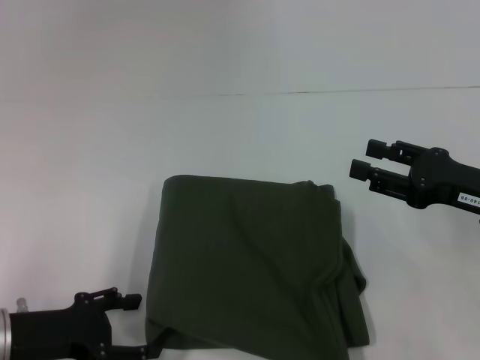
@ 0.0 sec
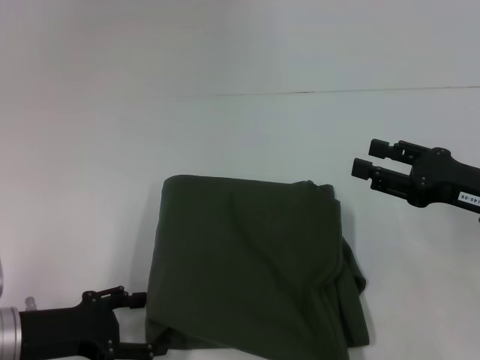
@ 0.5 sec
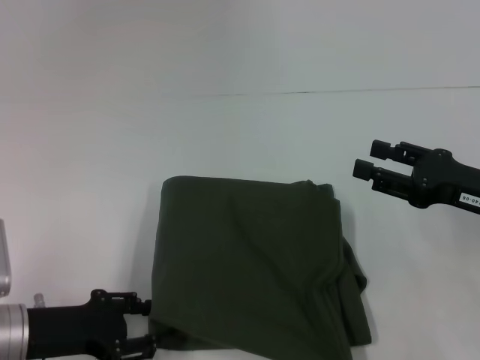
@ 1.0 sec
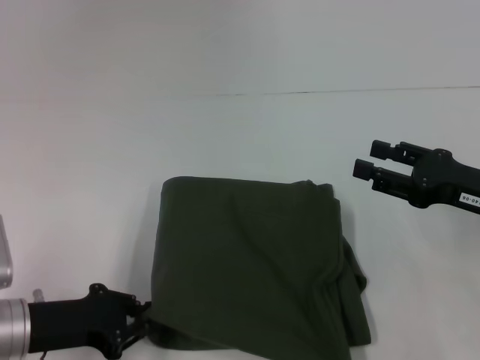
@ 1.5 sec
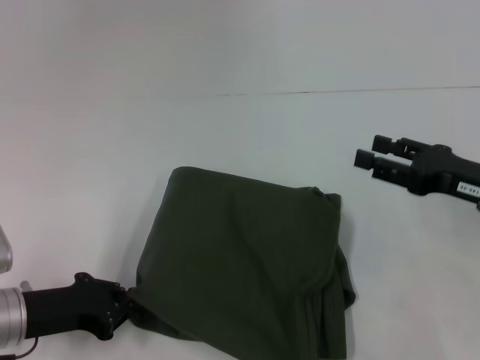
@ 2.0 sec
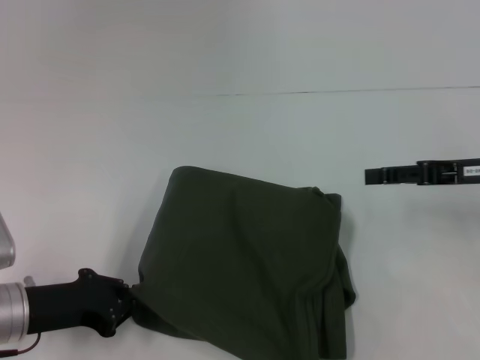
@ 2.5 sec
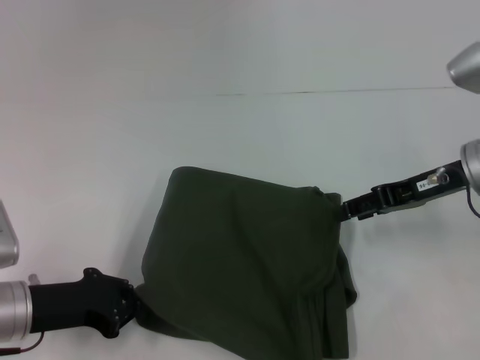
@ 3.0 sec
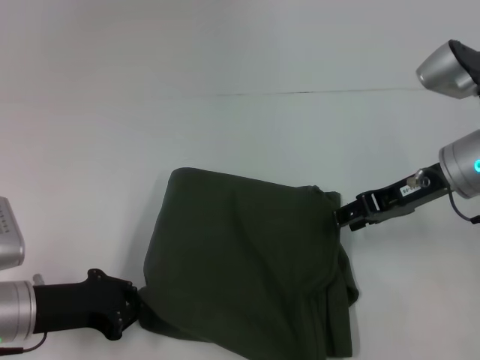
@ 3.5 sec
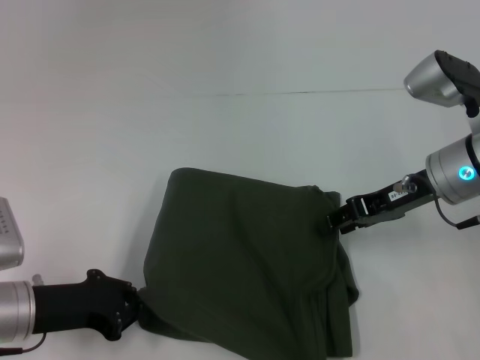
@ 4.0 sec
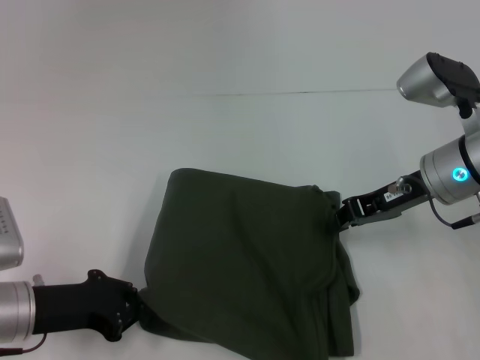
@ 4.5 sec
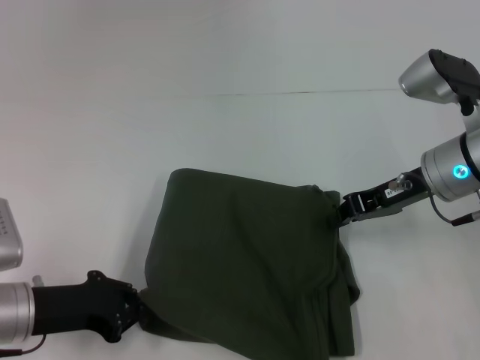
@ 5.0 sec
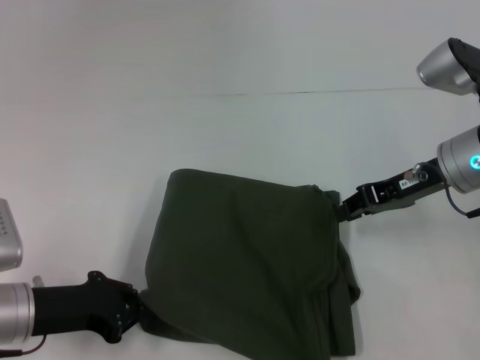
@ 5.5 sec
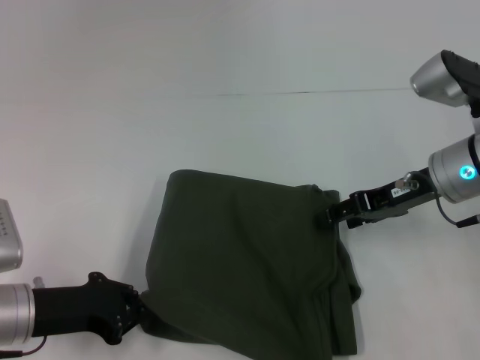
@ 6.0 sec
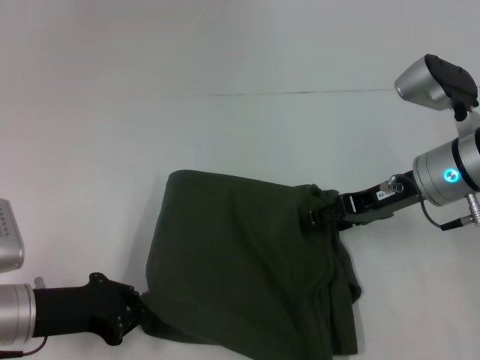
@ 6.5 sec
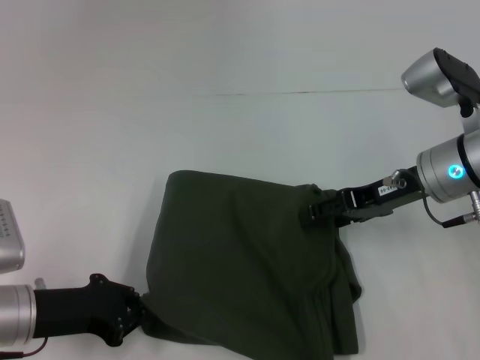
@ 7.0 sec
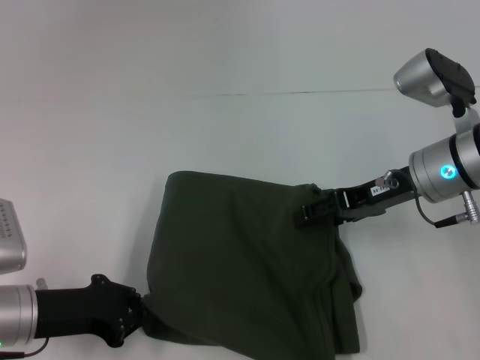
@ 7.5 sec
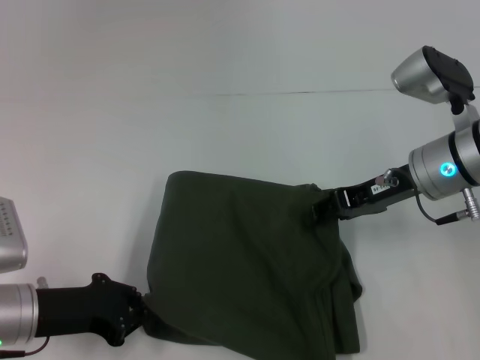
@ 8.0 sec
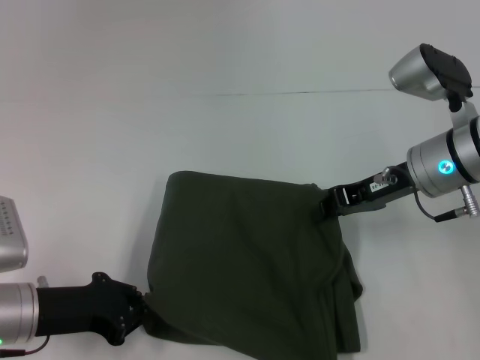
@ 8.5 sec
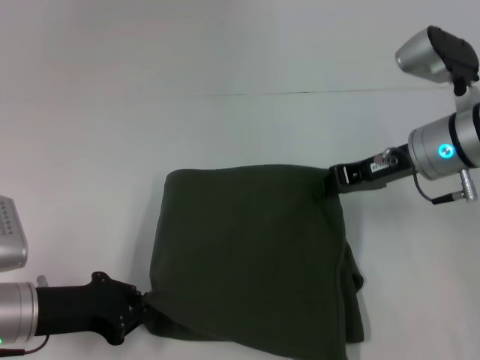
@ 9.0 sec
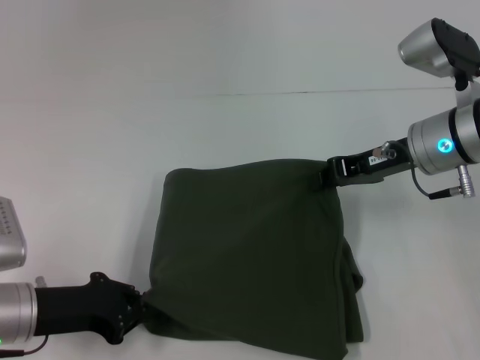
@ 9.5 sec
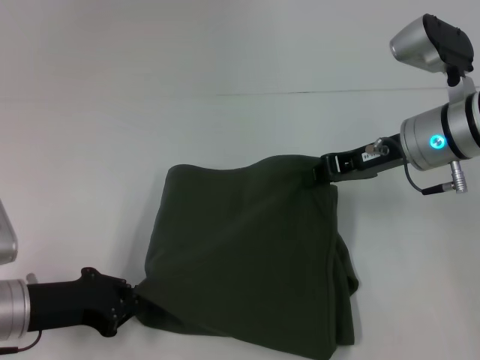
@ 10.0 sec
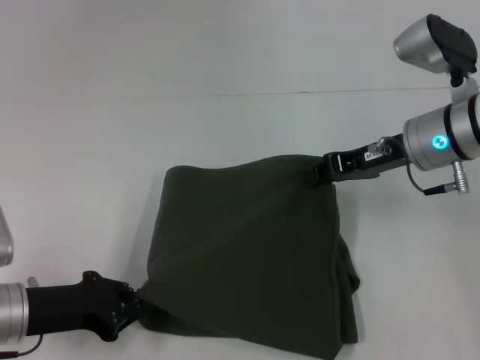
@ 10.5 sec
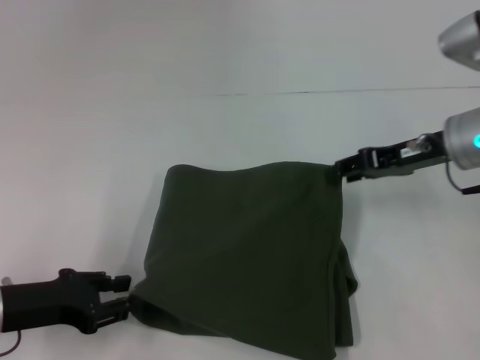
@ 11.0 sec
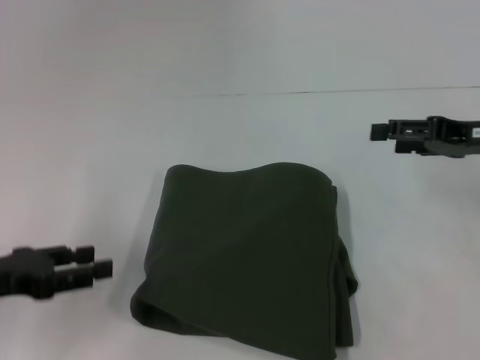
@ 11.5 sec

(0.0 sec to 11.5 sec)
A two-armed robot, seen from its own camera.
0.0 sec - 2.0 sec: The left gripper closes up.
2.0 sec - 4.0 sec: The right gripper travels forward and to the left by approximately 10 cm.
4.0 sec - 6.0 sec: The right gripper closes, then opens again.
6.0 sec - 7.5 sec: The right gripper opens its fingers.
7.5 sec - 9.5 sec: The right gripper closes its fingers.
9.5 sec - 11.5 sec: The right gripper goes about 10 cm to the right, and opens, while the left gripper is displaced to the left and upward by approximately 10 cm, and opens up.

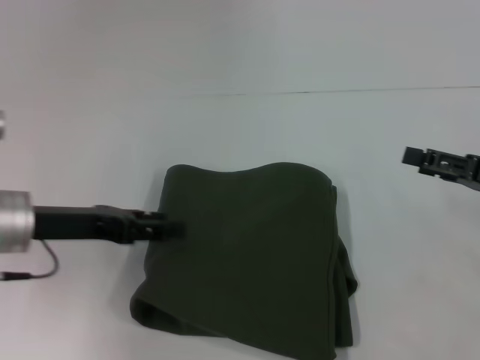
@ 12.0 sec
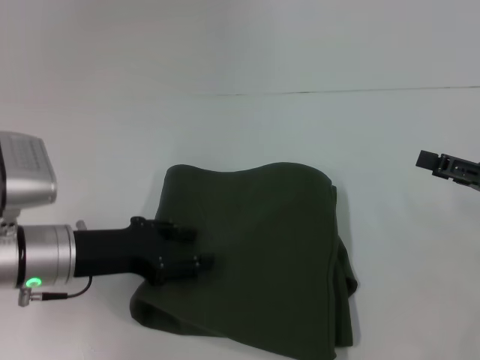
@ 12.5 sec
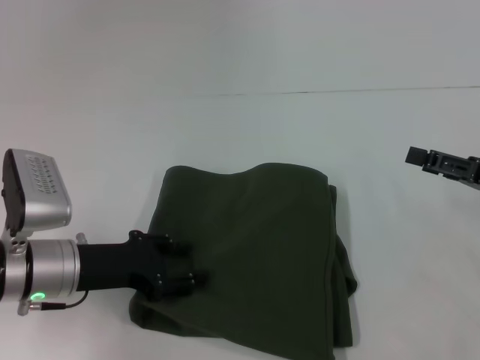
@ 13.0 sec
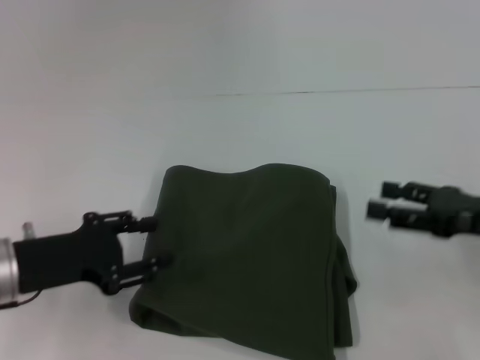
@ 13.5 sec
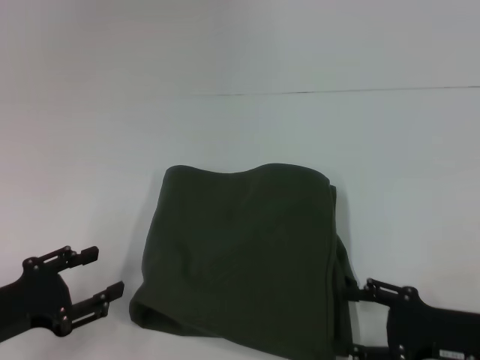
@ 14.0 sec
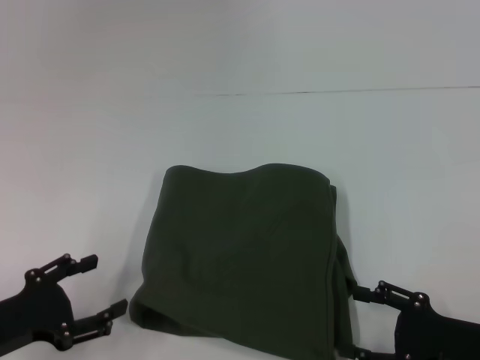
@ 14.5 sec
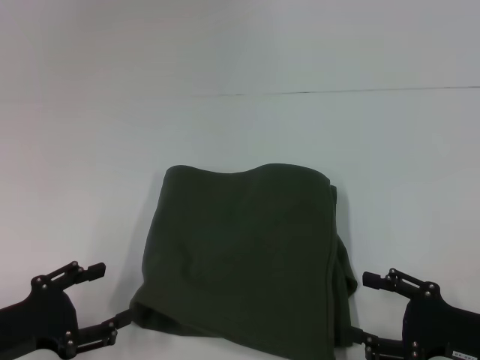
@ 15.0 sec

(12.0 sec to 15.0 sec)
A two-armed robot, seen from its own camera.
12.0 sec - 13.5 sec: The left gripper ends up some 5 cm from where it was.
13.5 sec - 15.0 sec: The right gripper is displaced backward and downward by about 10 cm. Meanwhile the left gripper is displaced backward by approximately 5 cm.

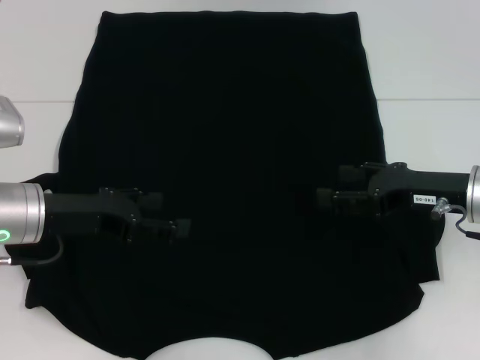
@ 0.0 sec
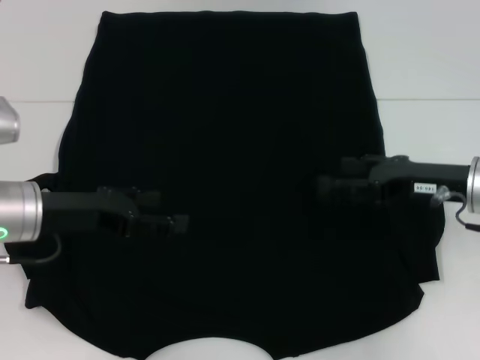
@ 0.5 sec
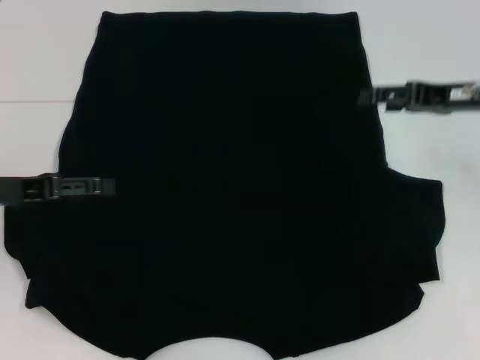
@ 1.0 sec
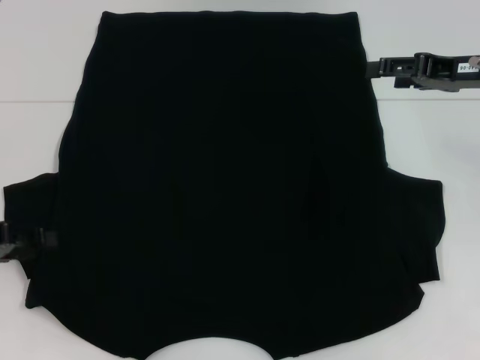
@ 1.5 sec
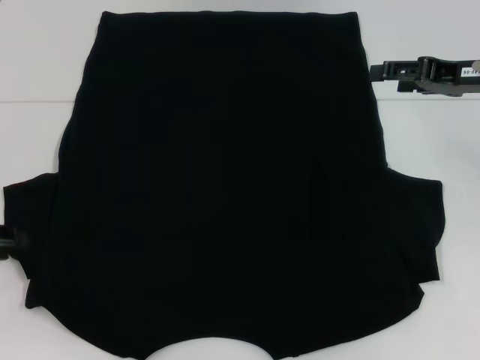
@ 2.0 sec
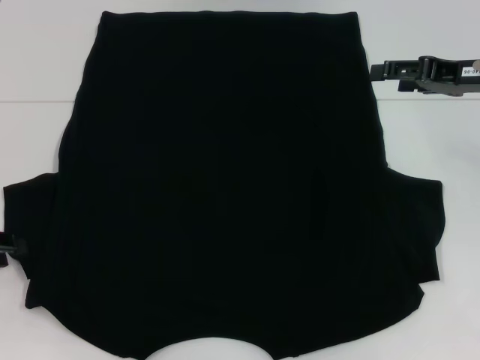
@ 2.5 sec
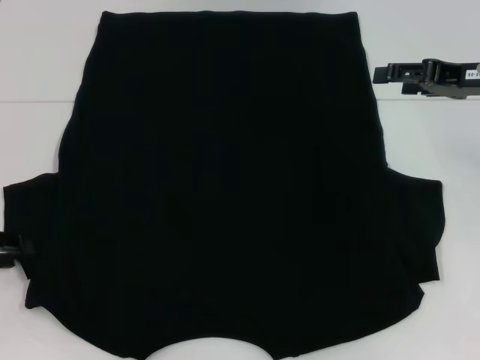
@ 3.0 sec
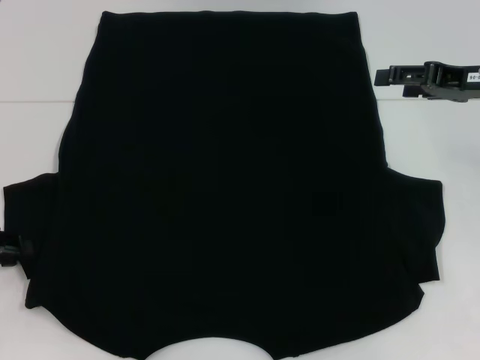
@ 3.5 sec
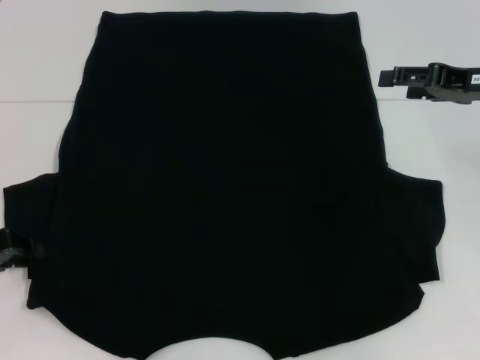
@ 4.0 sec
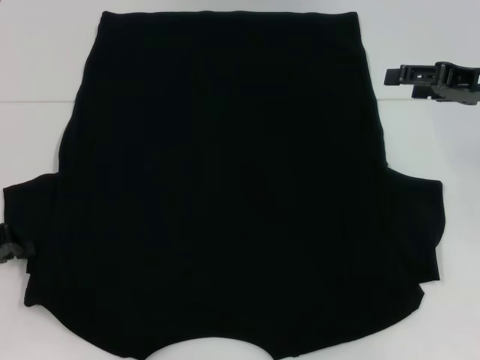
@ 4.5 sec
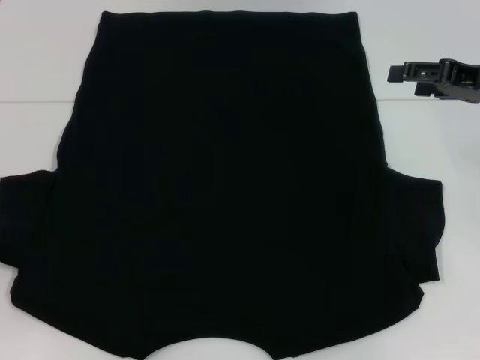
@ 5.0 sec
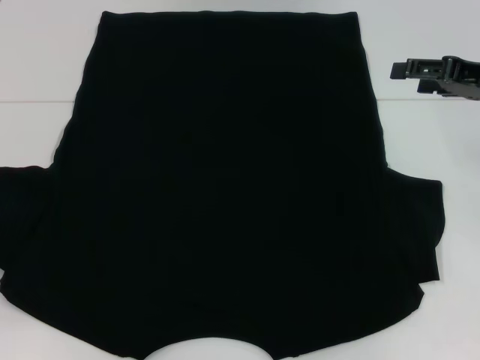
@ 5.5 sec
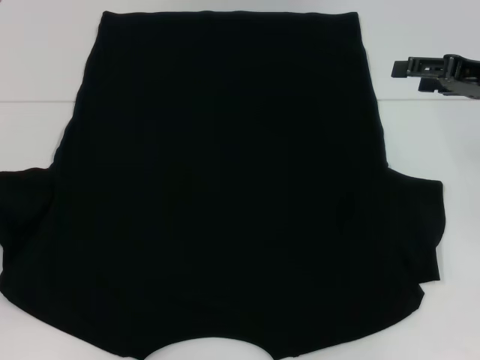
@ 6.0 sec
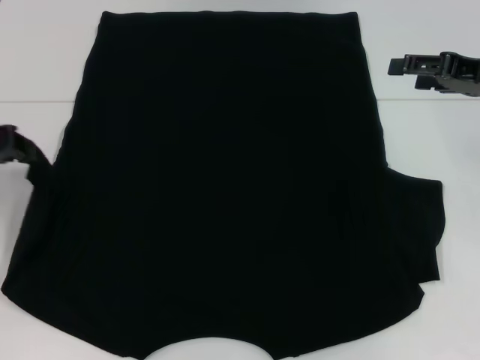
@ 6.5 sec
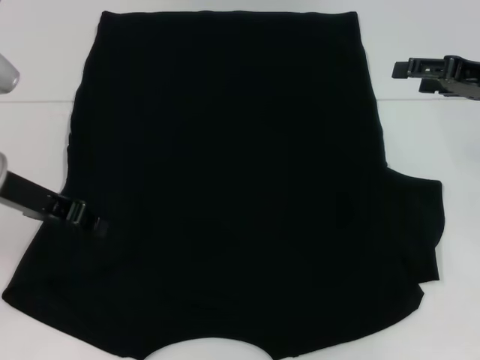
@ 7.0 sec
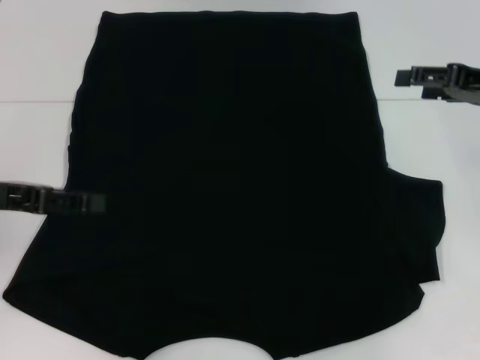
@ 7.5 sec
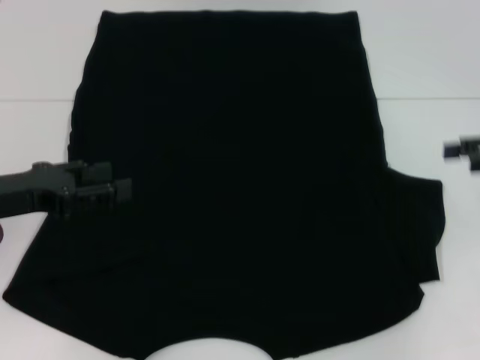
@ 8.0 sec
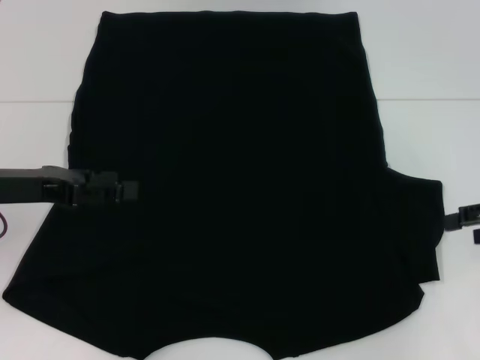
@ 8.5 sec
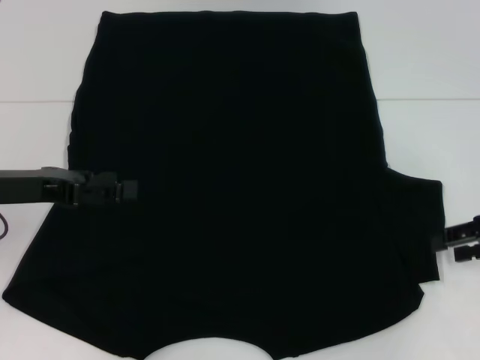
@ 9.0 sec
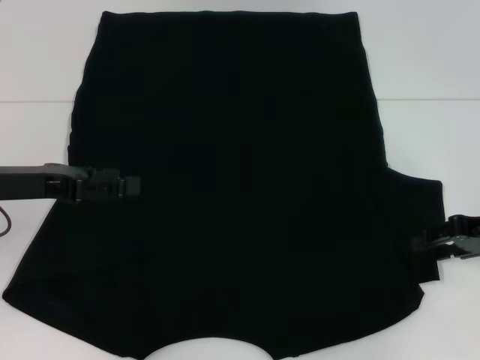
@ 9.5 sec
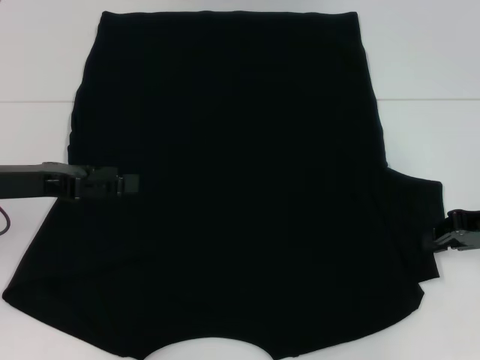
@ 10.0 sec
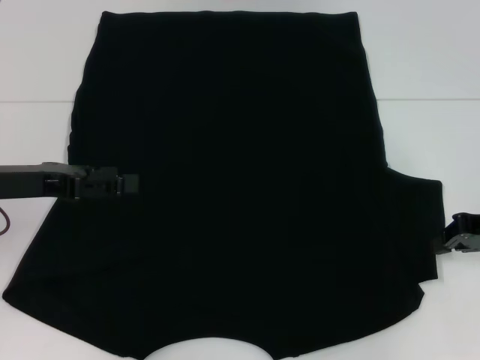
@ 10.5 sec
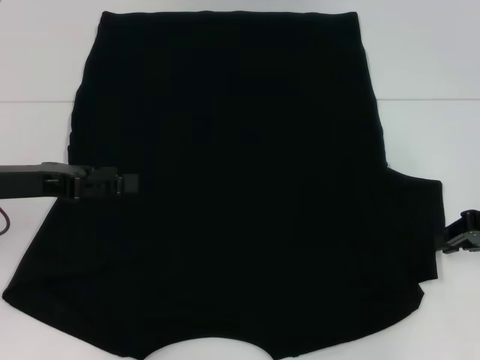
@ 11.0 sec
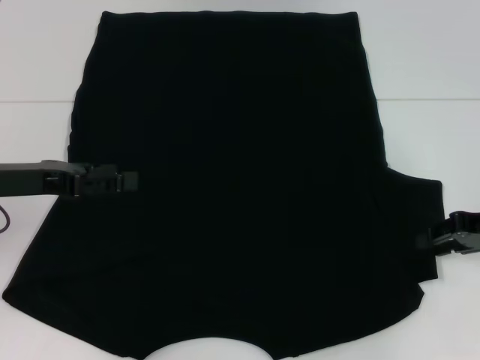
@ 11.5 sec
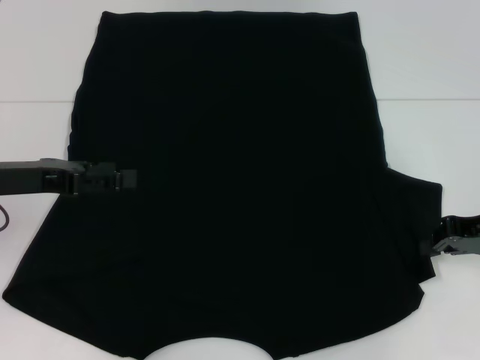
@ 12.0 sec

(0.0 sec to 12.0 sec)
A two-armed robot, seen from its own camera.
Step, 0.0 sec - 7.0 sec: Fold the bottom left sleeve with your left hand.
0.0 sec - 2.0 sec: The right gripper moves upward and forward, roughly 10 cm. Meanwhile the left gripper heads to the left, covering roughly 10 cm, and closes.
2.0 sec - 4.0 sec: There are only small adjustments of the grippers.
4.0 sec - 6.0 sec: The left gripper shifts by about 5 cm, and closes its fingers.
6.0 sec - 8.0 sec: The right gripper shifts approximately 5 cm to the right and backward; the left gripper travels to the right by some 10 cm, and opens its fingers.
8.0 sec - 10.0 sec: The right gripper shifts some 5 cm downward, and closes its fingers.
10.0 sec - 12.0 sec: Neither gripper changes place.
